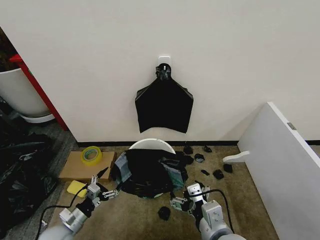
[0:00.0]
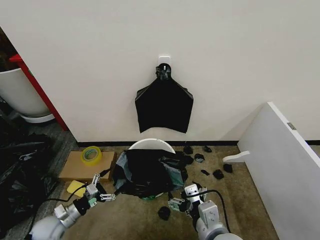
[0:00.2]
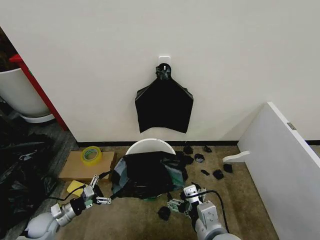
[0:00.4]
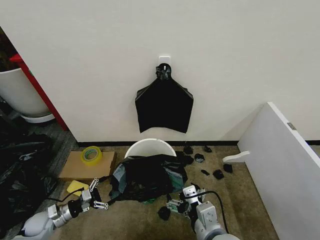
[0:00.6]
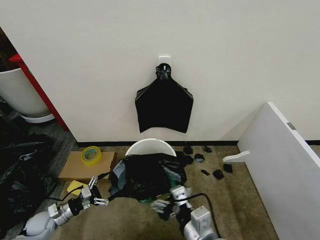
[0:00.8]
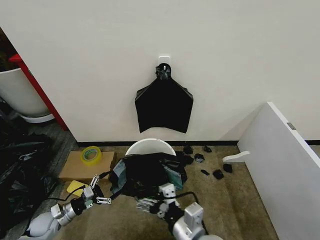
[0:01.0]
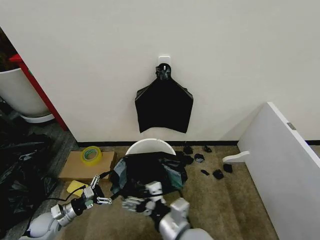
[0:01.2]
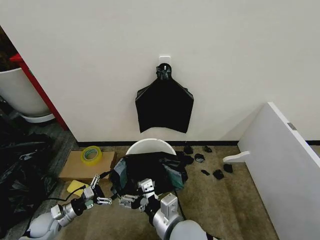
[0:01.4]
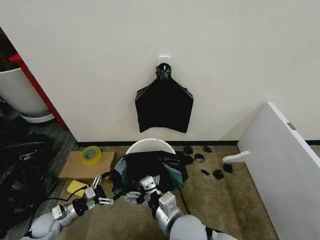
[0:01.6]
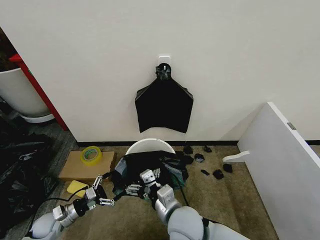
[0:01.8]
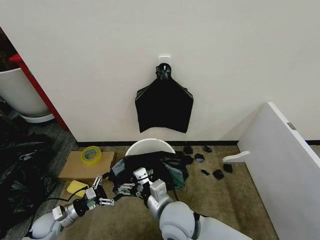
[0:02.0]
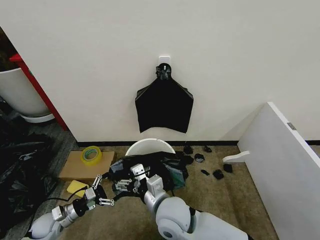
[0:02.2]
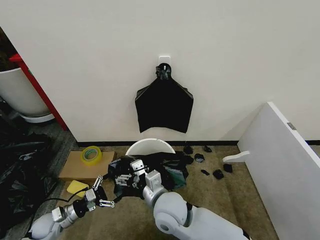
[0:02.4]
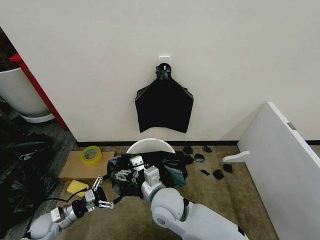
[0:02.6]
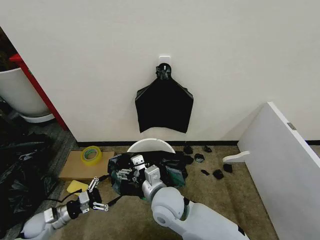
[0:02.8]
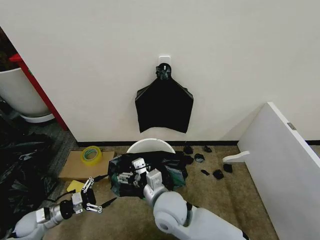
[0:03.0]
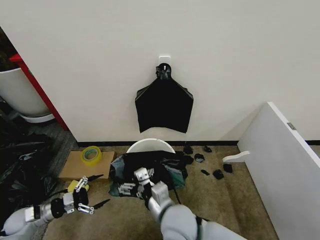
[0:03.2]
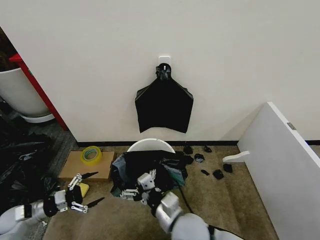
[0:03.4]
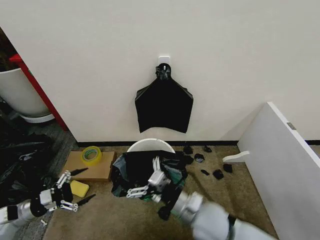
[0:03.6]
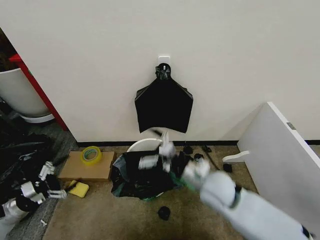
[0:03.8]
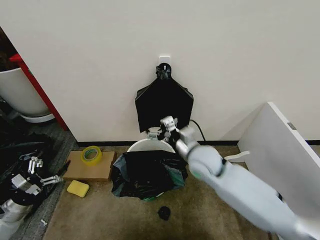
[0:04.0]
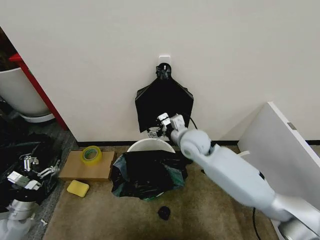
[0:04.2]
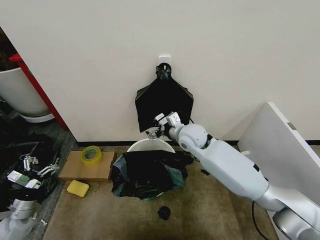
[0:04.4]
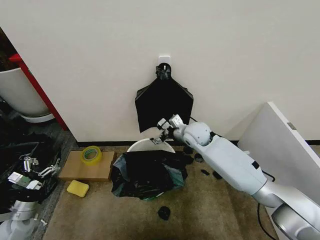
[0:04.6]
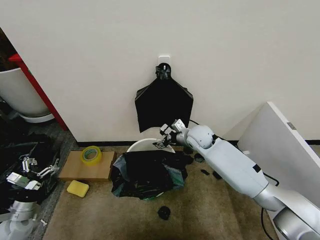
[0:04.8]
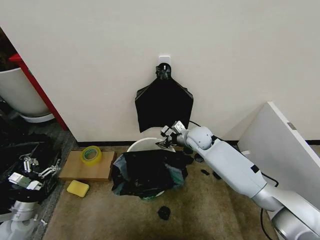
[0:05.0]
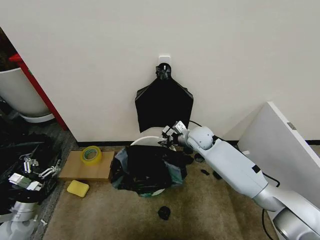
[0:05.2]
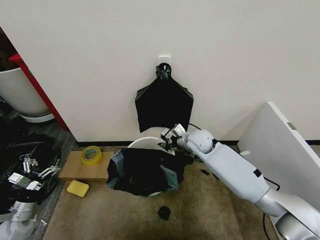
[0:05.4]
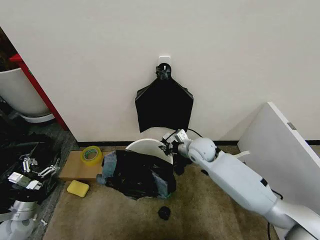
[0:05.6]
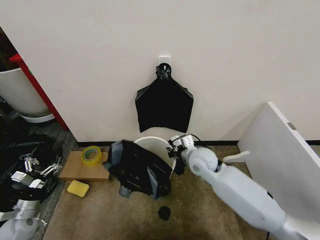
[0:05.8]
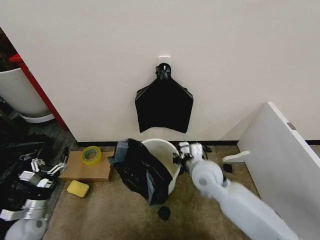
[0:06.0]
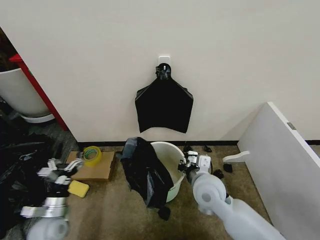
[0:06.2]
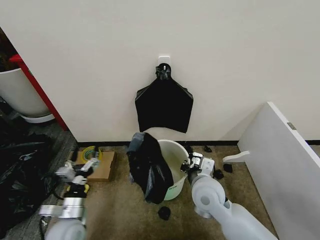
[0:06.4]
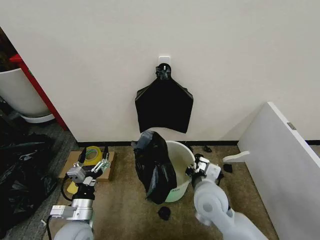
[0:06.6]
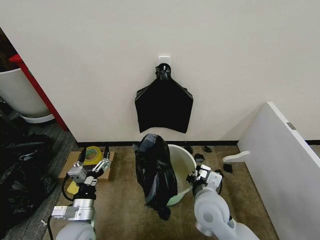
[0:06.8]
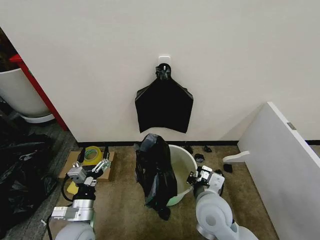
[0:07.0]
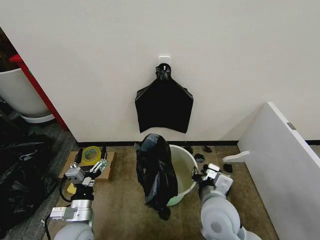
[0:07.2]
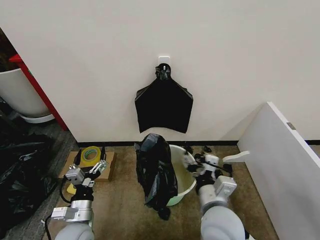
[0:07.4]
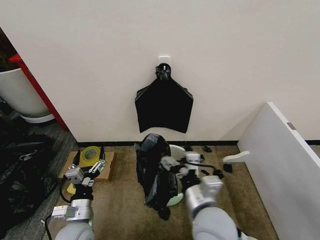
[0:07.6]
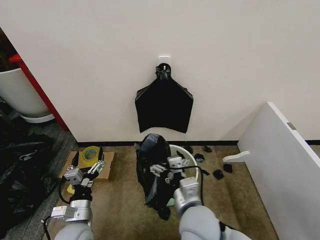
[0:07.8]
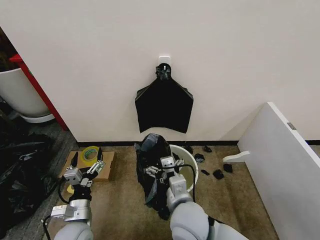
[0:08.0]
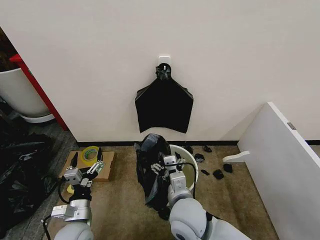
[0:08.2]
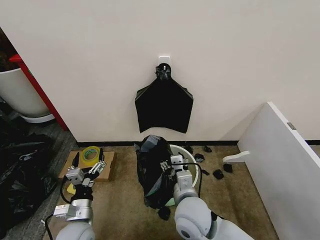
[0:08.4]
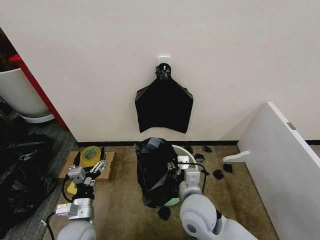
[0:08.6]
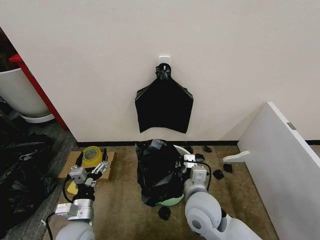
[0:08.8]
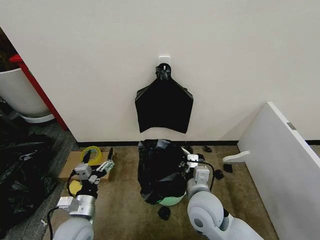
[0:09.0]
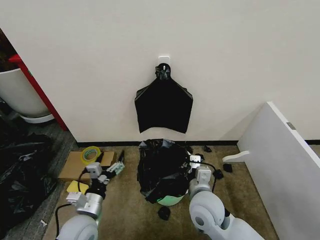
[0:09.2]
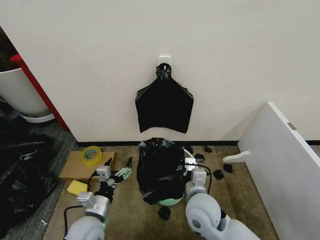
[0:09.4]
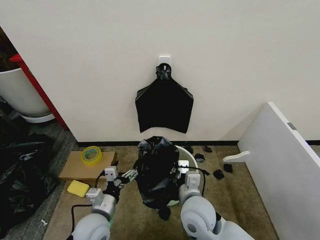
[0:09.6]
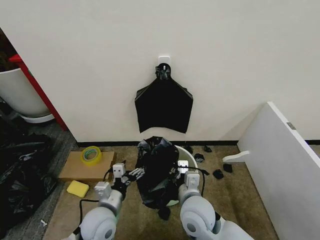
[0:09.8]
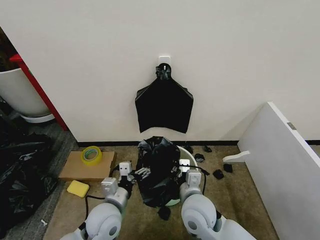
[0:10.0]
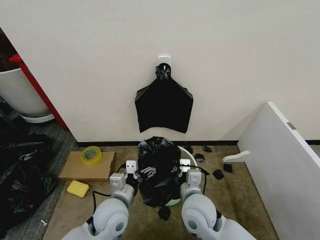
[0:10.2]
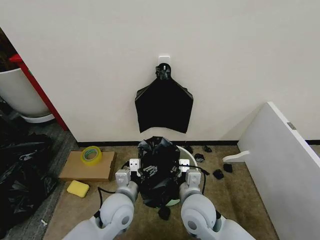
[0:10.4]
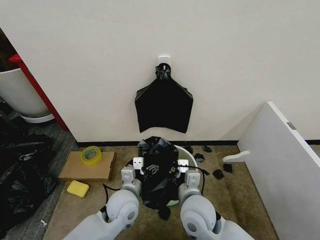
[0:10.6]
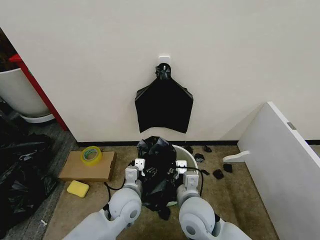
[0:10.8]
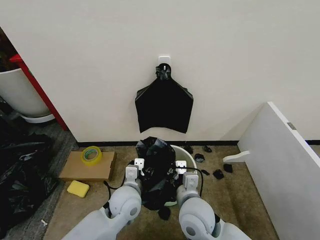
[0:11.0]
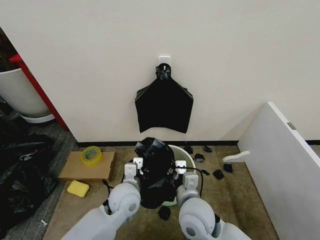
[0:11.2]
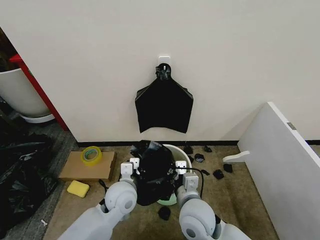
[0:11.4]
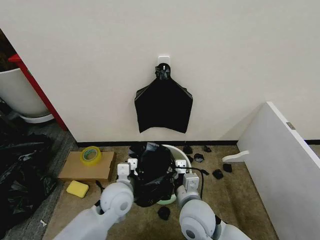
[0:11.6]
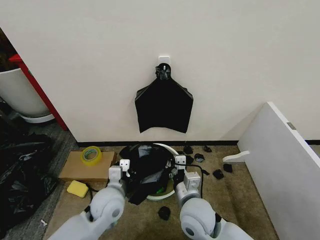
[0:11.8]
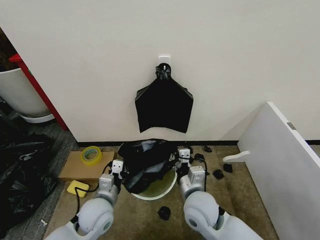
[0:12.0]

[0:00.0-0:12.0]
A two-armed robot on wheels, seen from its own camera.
Task of the whole recording: Place the garbage bag over the trash bin.
0:00.0 to 0:01.6: The left gripper is displaced to the left and forward by roughly 10 cm; the right gripper goes about 10 cm to the left.
0:01.6 to 0:03.0: The right gripper shifts some 5 cm forward.
0:03.0 to 0:04.4: The right gripper travels forward and to the right by some 25 cm.
0:04.4 to 0:06.0: The right gripper travels backward and downward by approximately 15 cm, and closes up. The left gripper travels to the right by approximately 5 cm.
0:06.0 to 0:07.6: The left gripper is displaced to the right by roughly 20 cm. The right gripper moves backward, roughly 15 cm, and opens its fingers.
0:07.6 to 0:09.0: The right gripper heads forward and downward, covering some 10 cm, and closes.
0:09.0 to 0:10.4: The left gripper travels to the right and forward by about 15 cm.
0:10.4 to 0:12.0: The left gripper goes some 5 cm to the left, and closes its fingers.

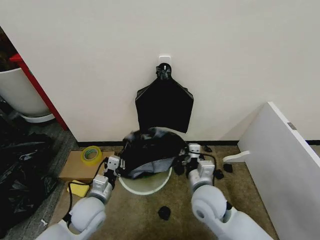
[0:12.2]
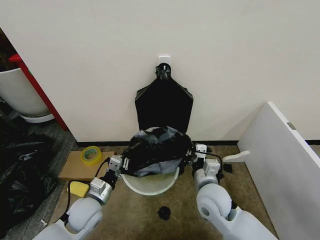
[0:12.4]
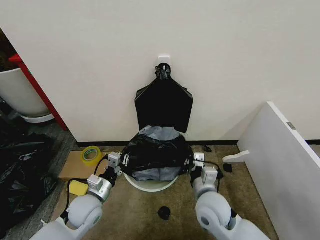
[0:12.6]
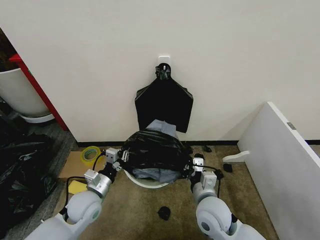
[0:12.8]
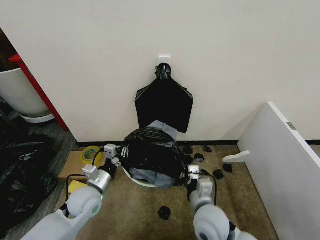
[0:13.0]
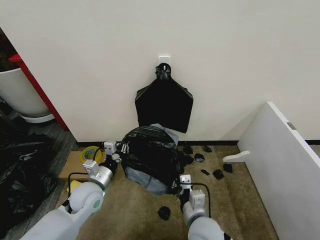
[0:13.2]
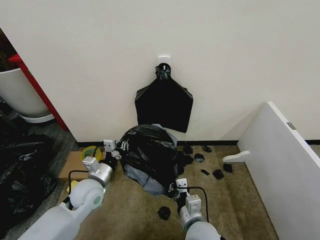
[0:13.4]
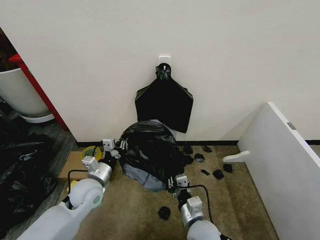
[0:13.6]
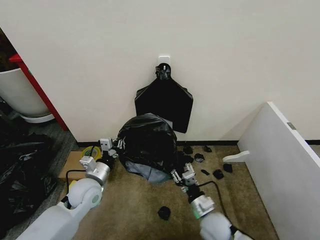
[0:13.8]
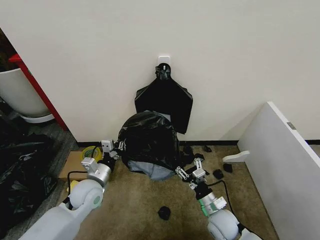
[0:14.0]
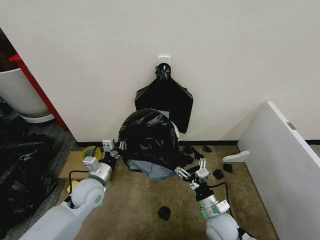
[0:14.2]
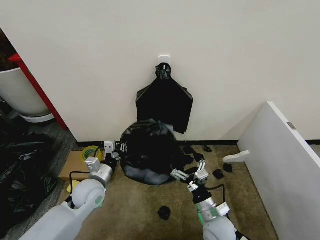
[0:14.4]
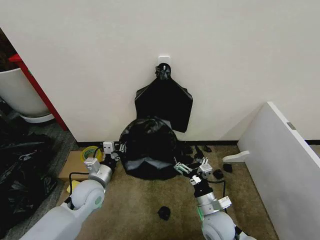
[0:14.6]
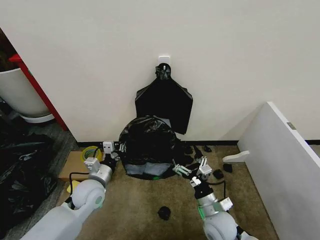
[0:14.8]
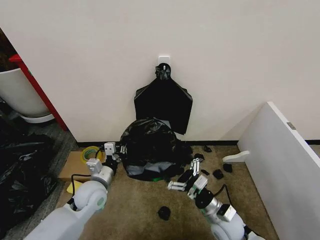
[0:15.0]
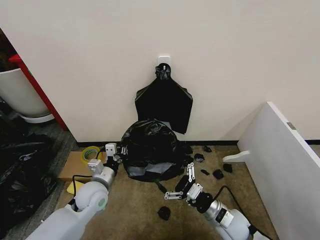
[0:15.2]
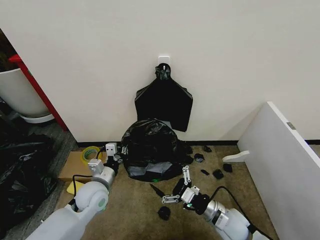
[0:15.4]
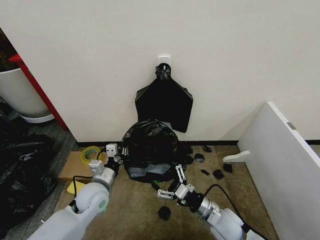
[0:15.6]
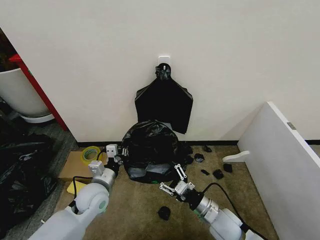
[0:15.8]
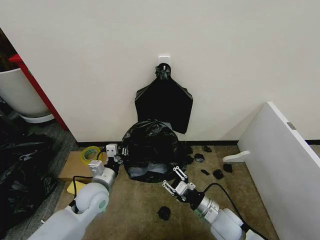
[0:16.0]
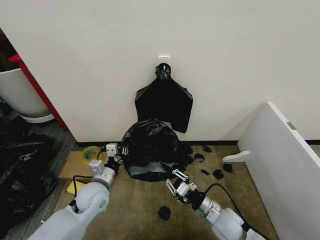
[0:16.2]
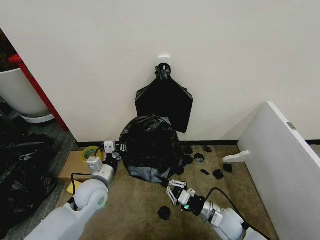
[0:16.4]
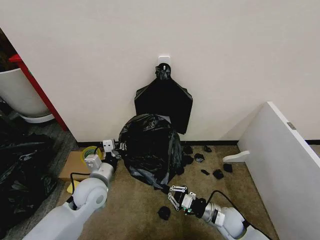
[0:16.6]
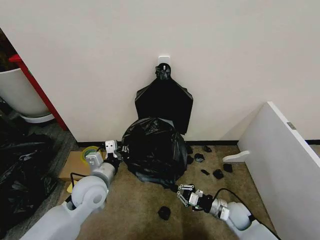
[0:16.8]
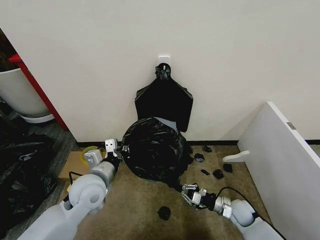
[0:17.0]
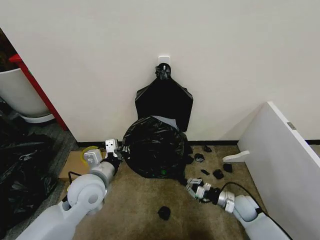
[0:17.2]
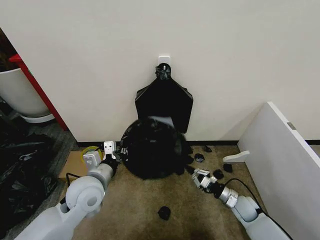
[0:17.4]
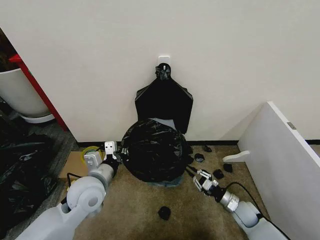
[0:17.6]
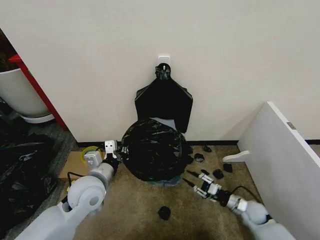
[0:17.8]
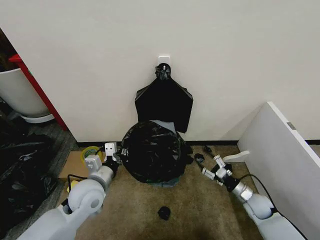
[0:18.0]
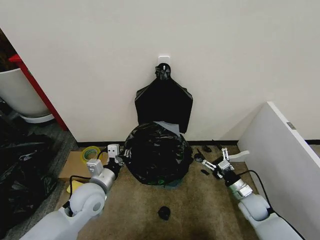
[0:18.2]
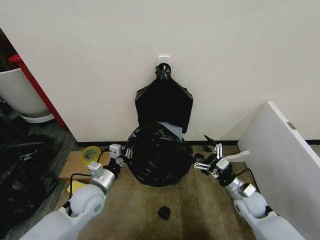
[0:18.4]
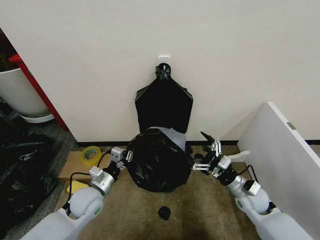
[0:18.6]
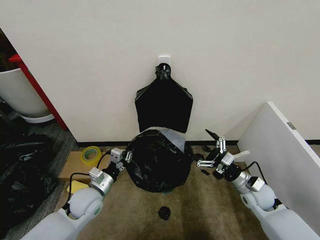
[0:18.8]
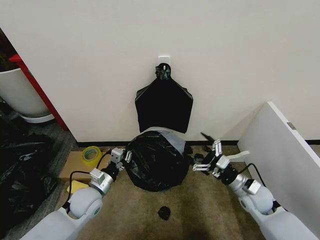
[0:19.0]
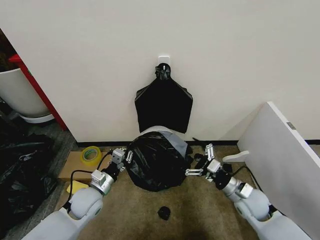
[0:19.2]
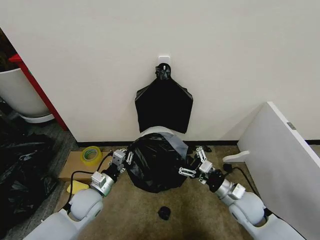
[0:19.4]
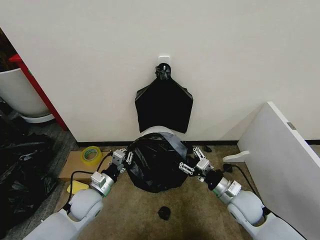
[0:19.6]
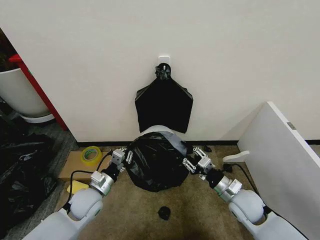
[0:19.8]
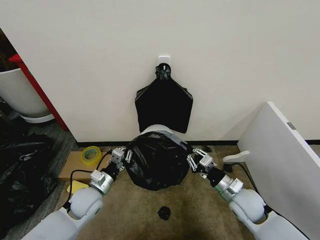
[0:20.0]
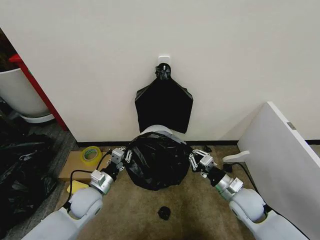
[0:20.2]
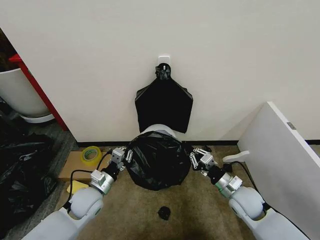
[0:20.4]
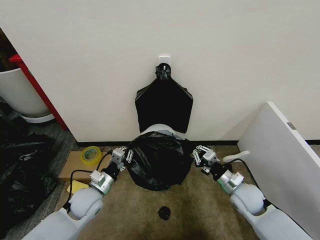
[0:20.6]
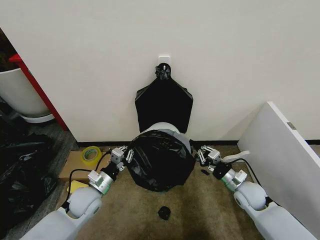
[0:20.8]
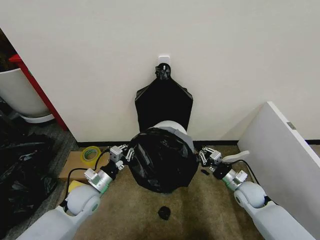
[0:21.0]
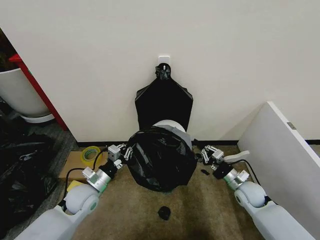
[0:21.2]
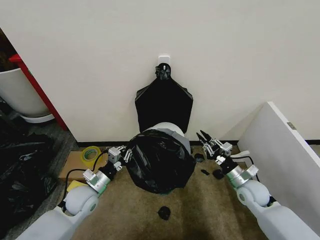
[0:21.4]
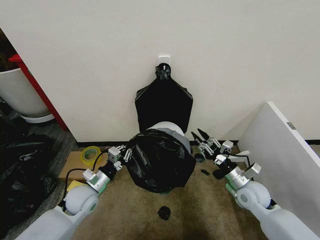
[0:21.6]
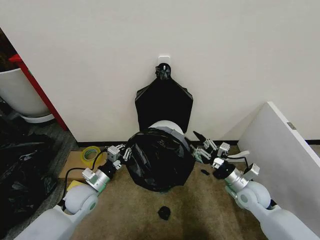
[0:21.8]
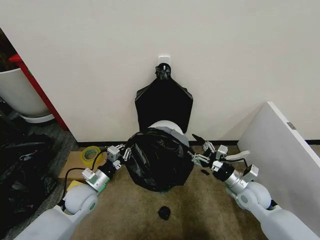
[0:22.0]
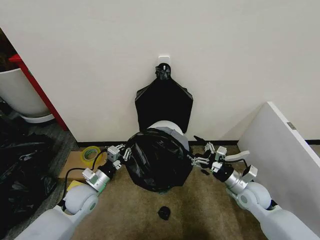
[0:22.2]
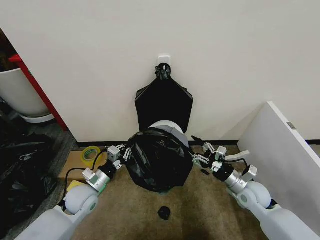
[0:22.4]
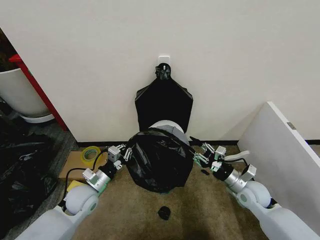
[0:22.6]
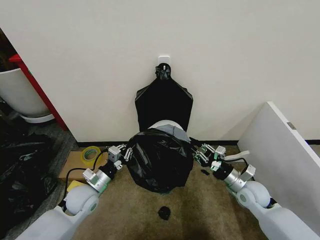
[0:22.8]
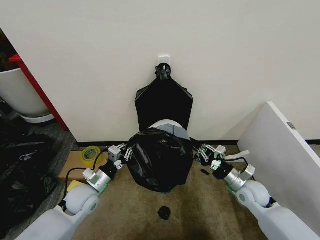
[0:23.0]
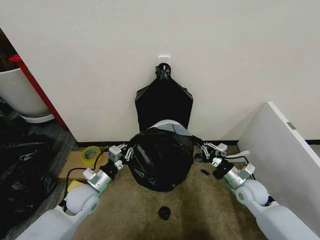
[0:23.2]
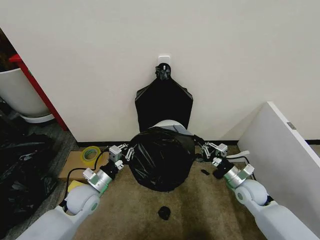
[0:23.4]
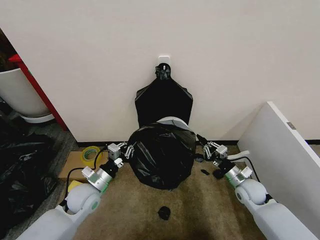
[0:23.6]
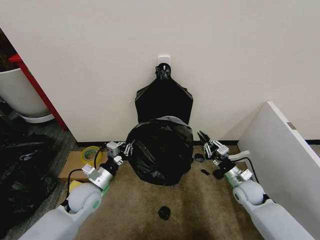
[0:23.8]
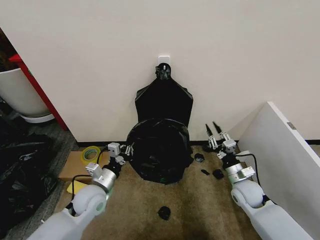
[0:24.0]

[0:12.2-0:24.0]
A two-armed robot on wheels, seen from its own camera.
Task of the whole recording: Place the garbage bag over the trash bin.
0:12.2 to 0:13.6: The left gripper heads forward, covering approximately 5 cm. The right gripper goes roughly 10 cm downward and backward.
0:13.6 to 0:15.2: The right gripper is displaced to the right by about 10 cm, and opens.
0:15.2 to 0:16.6: The right gripper moves downward, roughly 5 cm, and closes up.
0:16.6 to 0:18.2: The right gripper travels to the right and forward by roughly 15 cm, and opens up.
0:18.2 to 0:19.6: The left gripper is displaced downward by about 5 cm, while the right gripper goes roughly 15 cm upward and to the left.
0:19.6 to 0:21.0: The right gripper moves to the right, forward and downward, roughly 10 cm, and closes its fingers.
0:21.0 to 0:22.6: The right gripper opens up.
